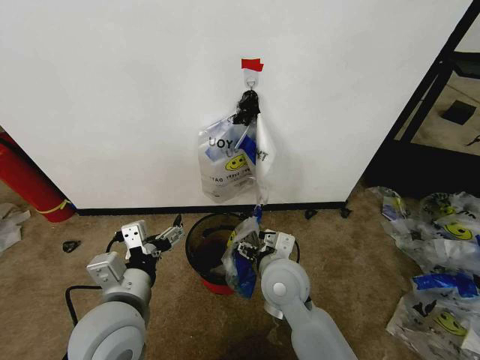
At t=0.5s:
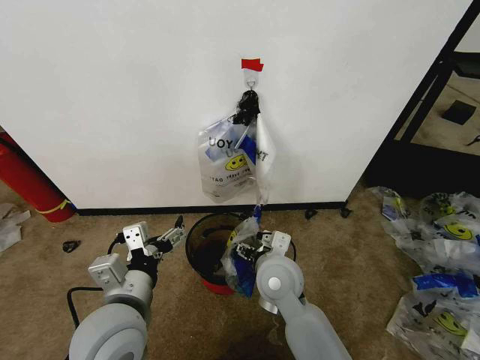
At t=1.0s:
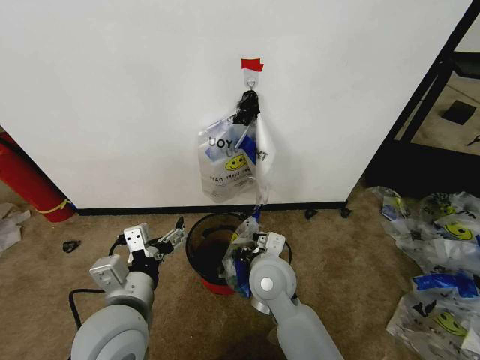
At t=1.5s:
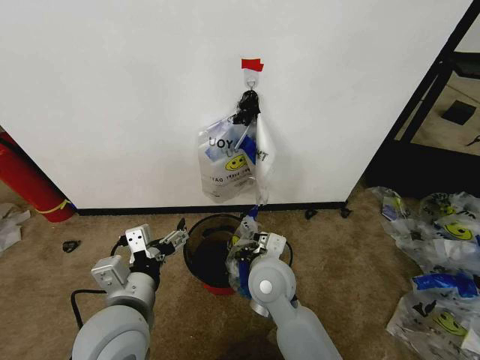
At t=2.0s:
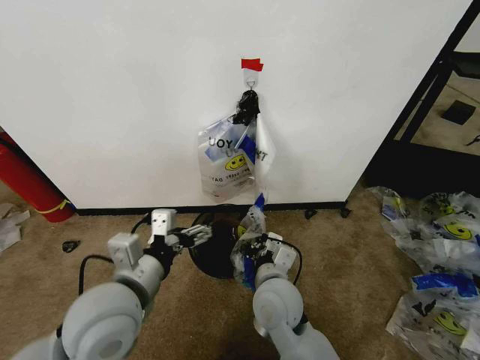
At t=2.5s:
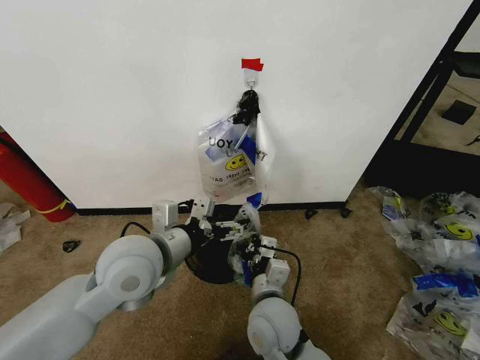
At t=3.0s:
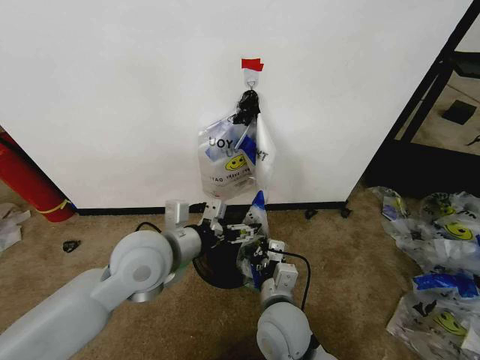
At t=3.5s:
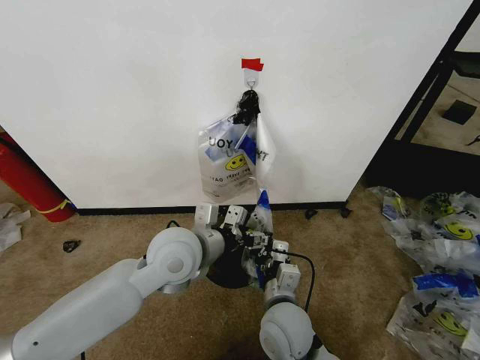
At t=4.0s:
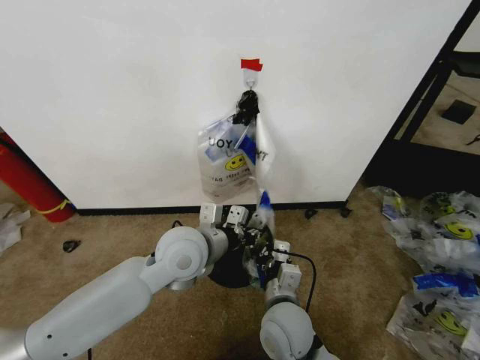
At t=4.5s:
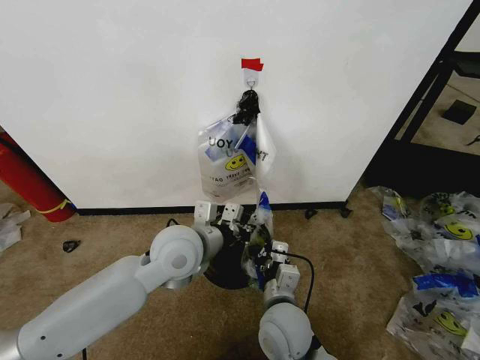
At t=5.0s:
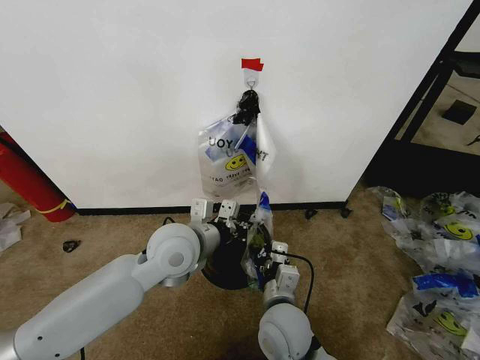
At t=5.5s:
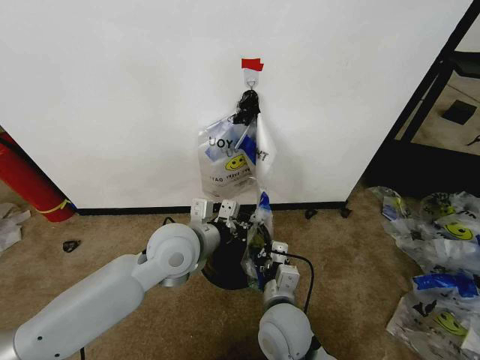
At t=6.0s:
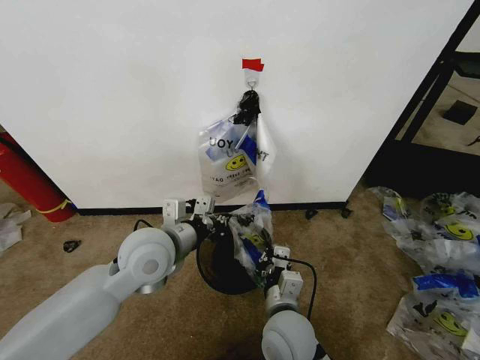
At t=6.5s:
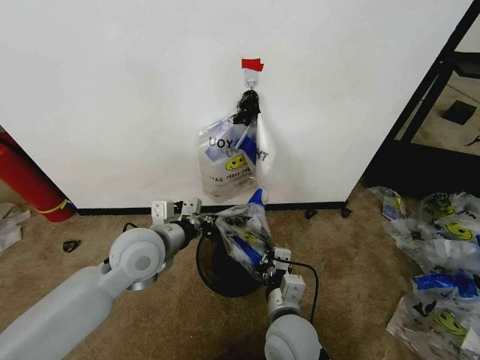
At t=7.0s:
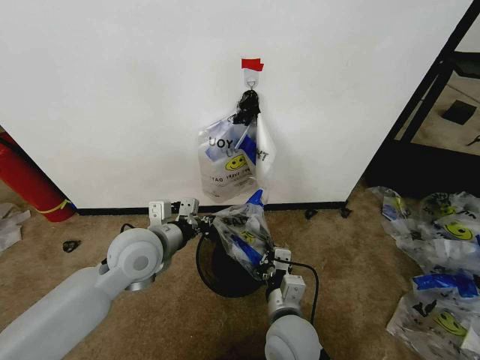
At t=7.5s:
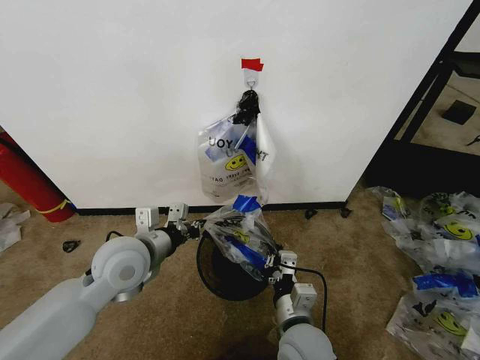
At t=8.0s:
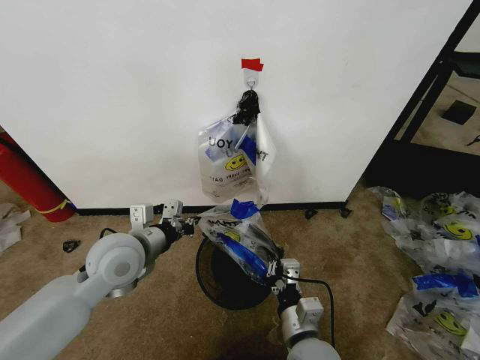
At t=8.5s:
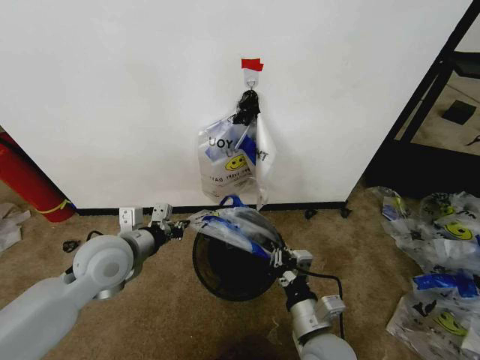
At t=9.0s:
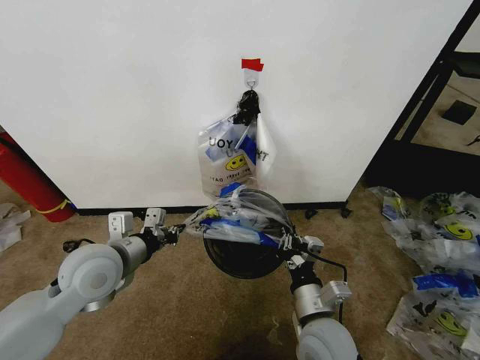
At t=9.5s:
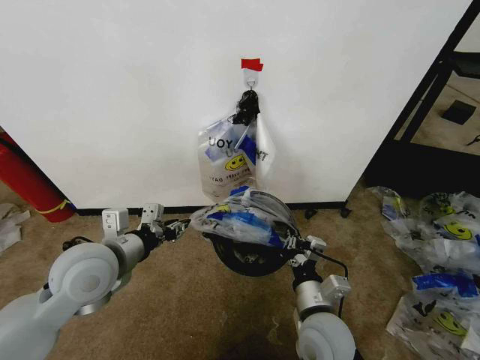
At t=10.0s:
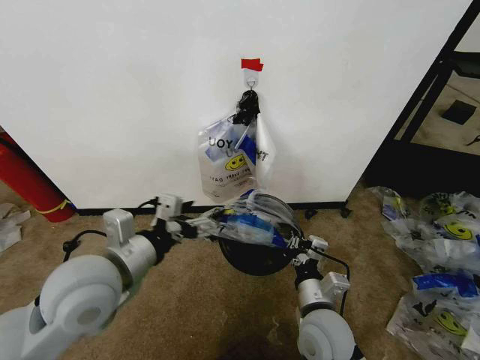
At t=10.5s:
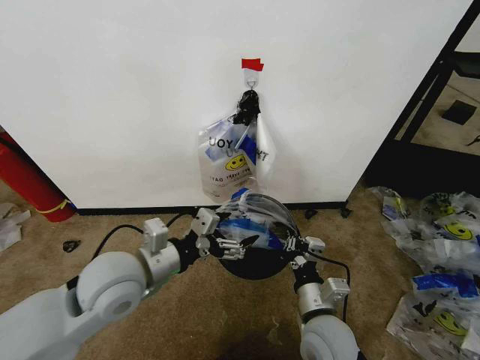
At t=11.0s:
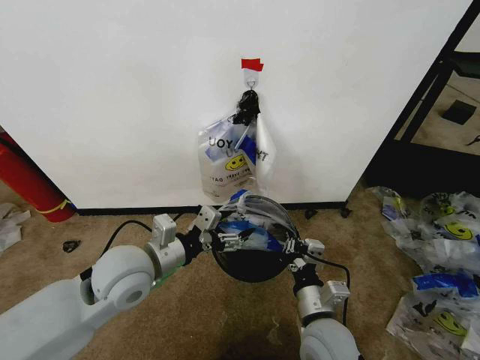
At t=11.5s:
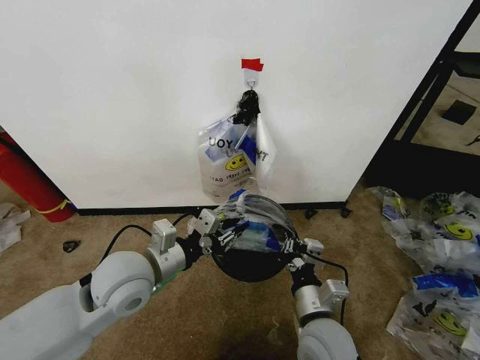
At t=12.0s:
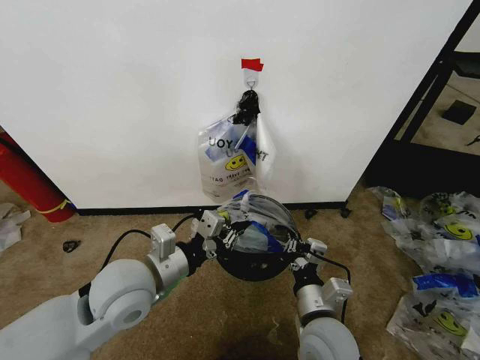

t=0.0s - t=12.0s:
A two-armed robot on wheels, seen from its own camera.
Task of the whole recording: Pick up the garbage bag from the wall and place it over the trash bin.
t=0.0s - t=2.0s: The right gripper closes its fingers.
t=2.0s - t=4.0s: The right gripper shifts by about 5 cm; the left gripper heads forward and to the right, covering approximately 15 cm, and closes.
t=4.0s - t=6.0s: The left gripper is displaced to the left by roughly 5 cm.
t=6.0s - t=8.0s: The right gripper changes place by some 5 cm. Meanwhile the left gripper moves to the left, approximately 5 cm.
t=8.0s - t=10.0s: The right gripper ends up some 5 cm from where it was, while the left gripper heads backward and upward, covering some 10 cm, and opens.
t=10.0s - t=12.0s: The left gripper moves some 5 cm, and closes.

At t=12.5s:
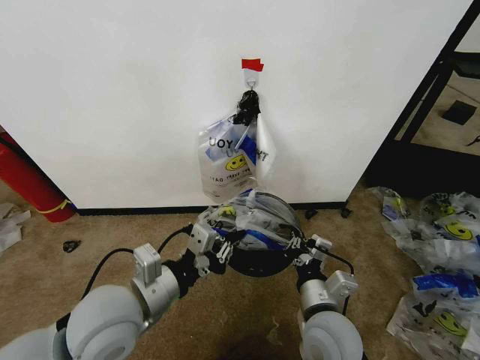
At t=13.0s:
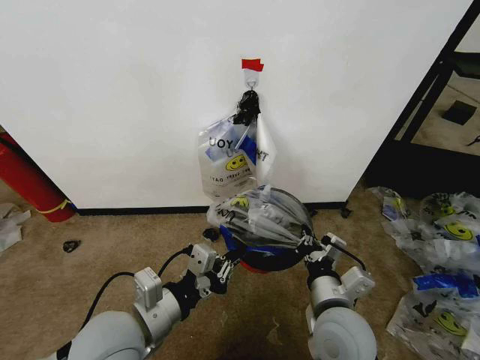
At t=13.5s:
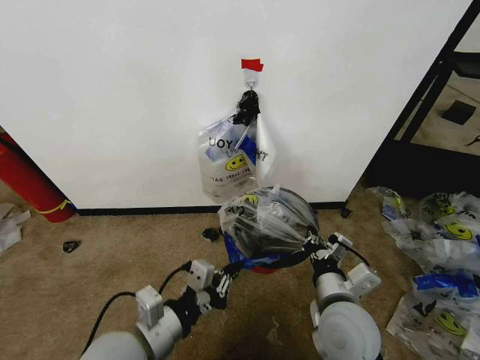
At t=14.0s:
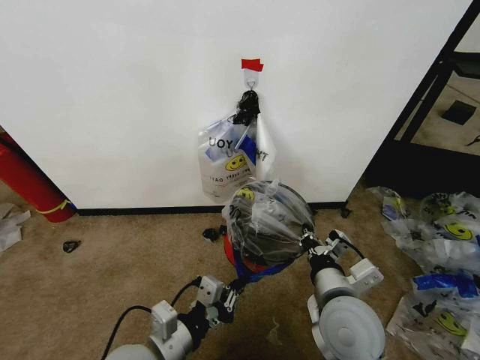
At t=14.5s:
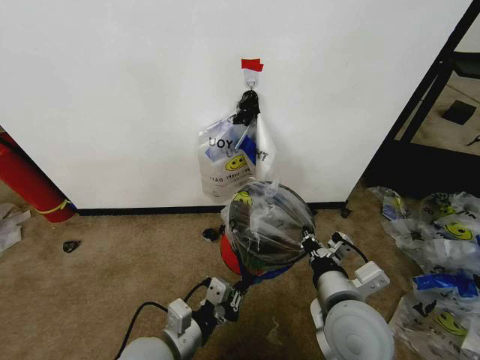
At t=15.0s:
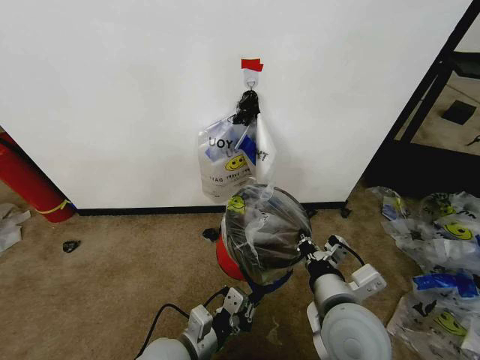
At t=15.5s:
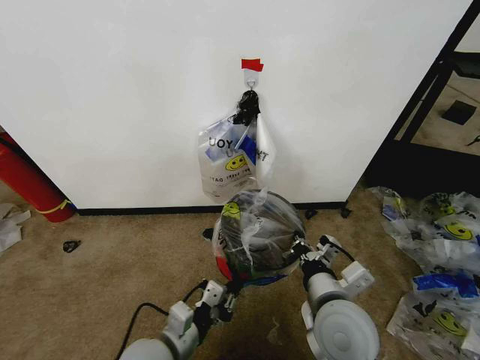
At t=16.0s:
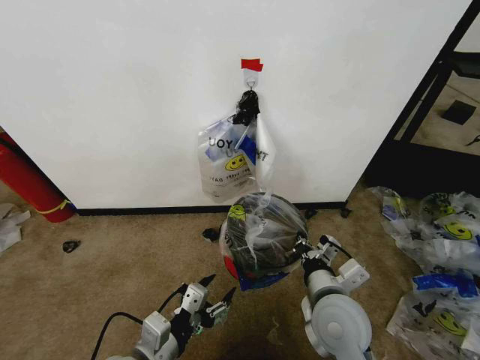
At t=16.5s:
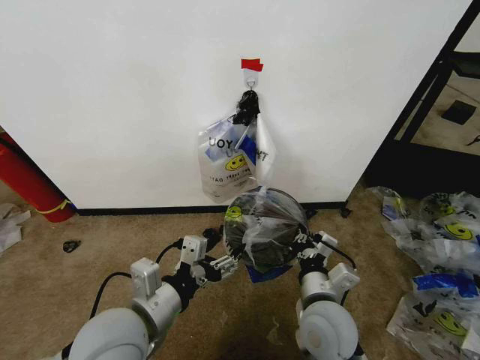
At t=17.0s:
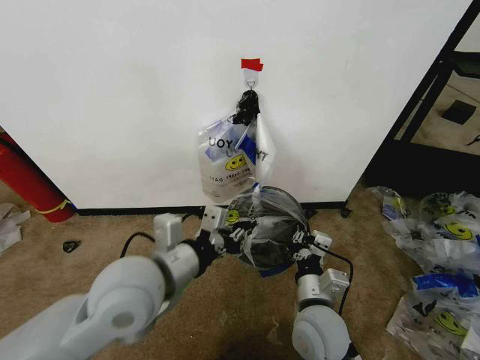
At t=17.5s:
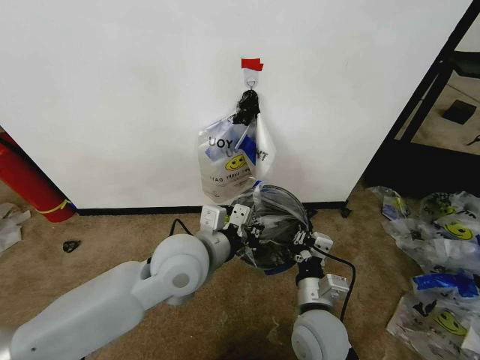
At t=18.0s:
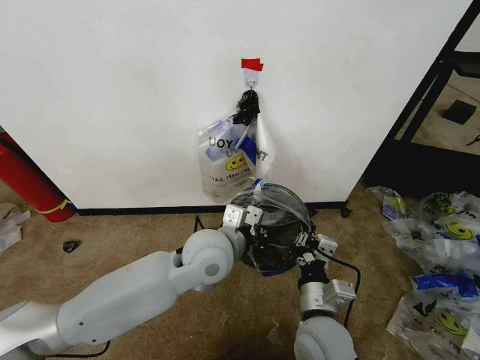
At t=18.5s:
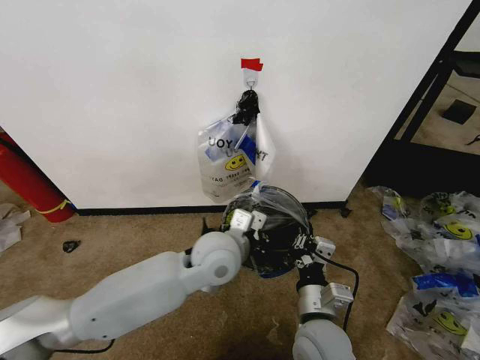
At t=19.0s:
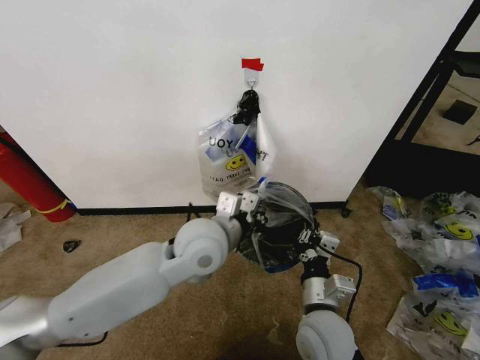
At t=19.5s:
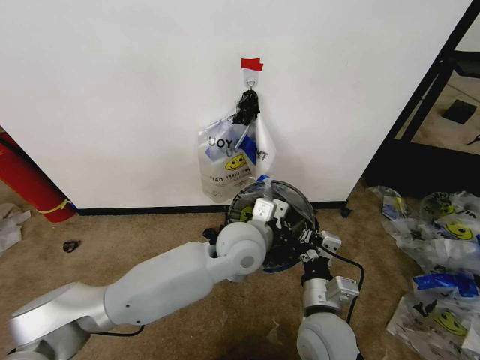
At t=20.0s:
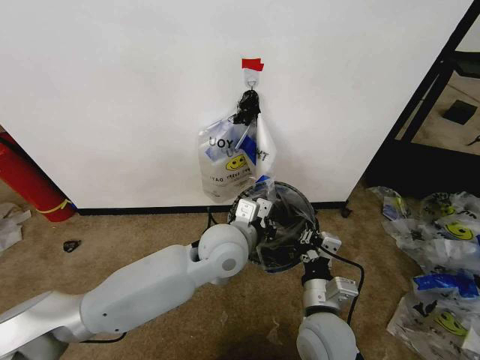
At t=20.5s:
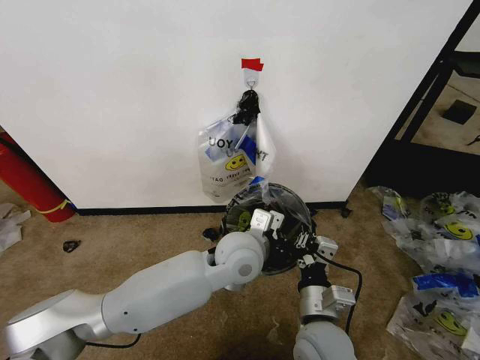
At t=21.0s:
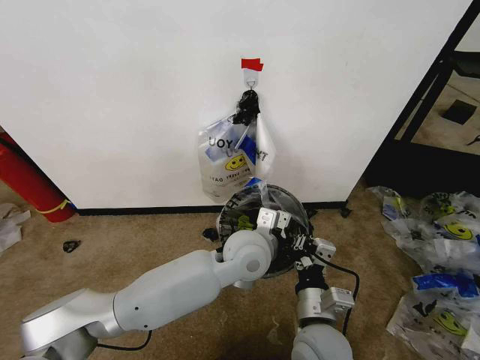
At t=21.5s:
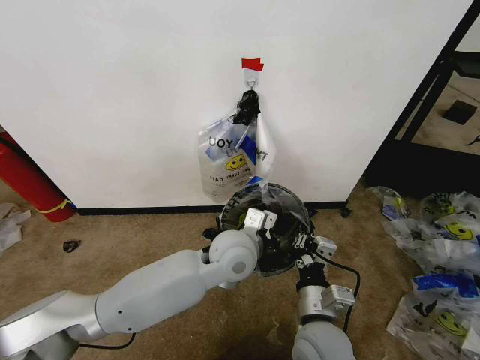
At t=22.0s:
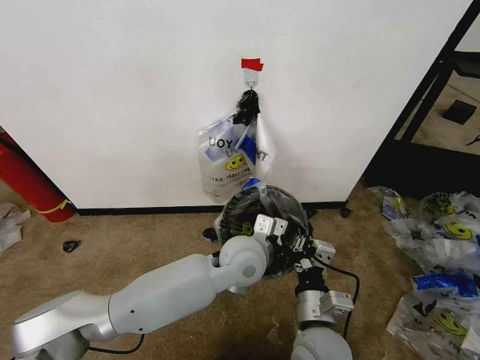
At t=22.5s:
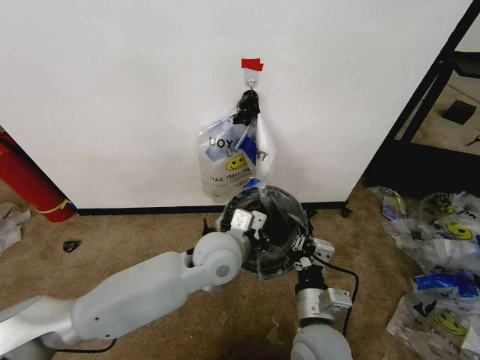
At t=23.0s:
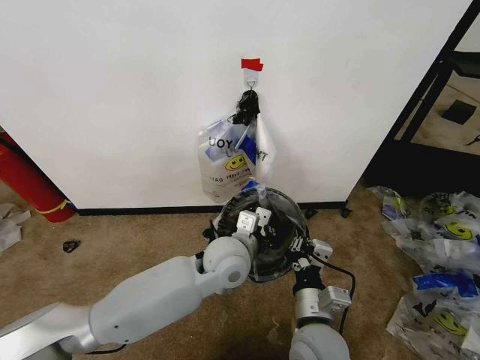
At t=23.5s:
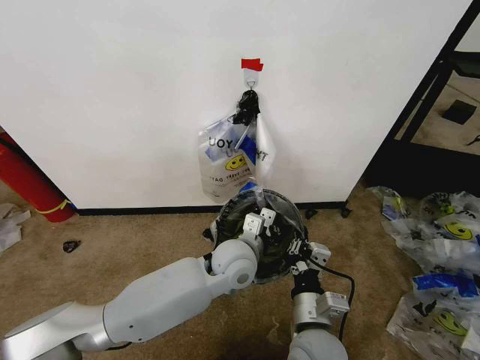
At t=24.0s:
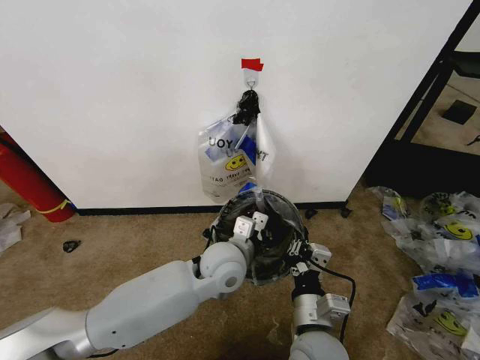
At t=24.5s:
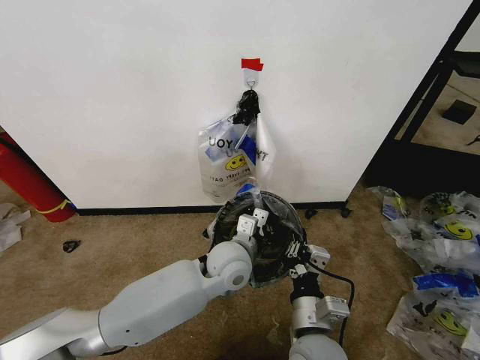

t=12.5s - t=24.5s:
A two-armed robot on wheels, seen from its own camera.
Task of the whole recording: Pick up the garbage bag from the wall and place it over the trash bin.
t=12.5s - t=14.5s: The left gripper heads downward, covering about 10 cm, while the right gripper moves upward, approximately 5 cm.
t=14.5s - t=16.5s: The left gripper goes some 10 cm upward, and opens up; the right gripper moves downward, roughly 5 cm.
t=16.5s - t=18.5s: The left gripper shifts about 20 cm forward and to the right, and closes its fingers.
t=20.5s - t=22.5s: The grippers make only small movements.
t=22.5s - t=24.5s: The left gripper moves downward, some 5 cm.

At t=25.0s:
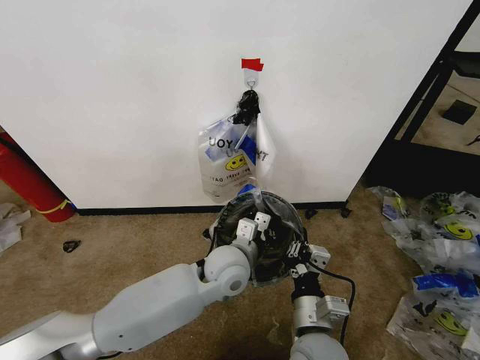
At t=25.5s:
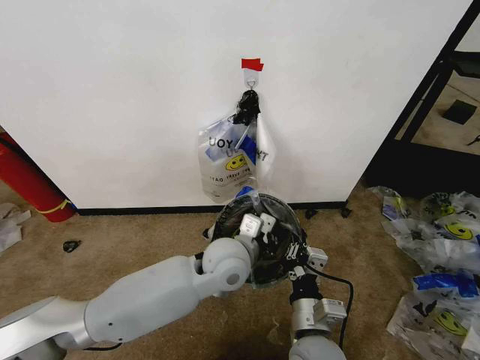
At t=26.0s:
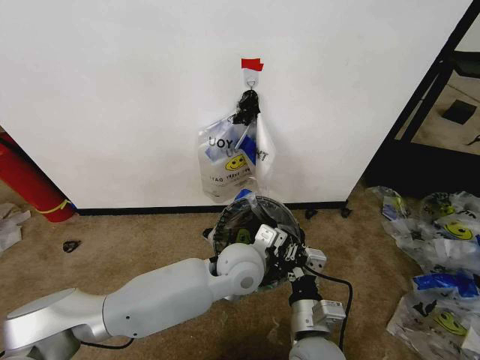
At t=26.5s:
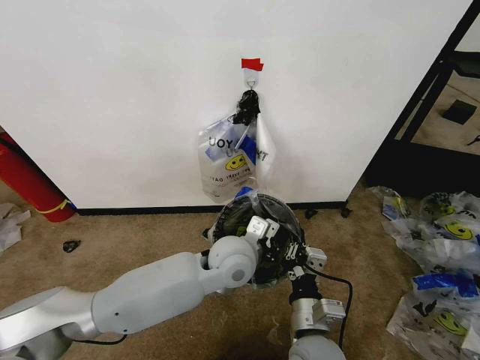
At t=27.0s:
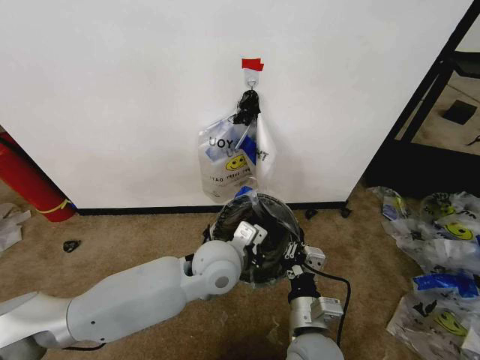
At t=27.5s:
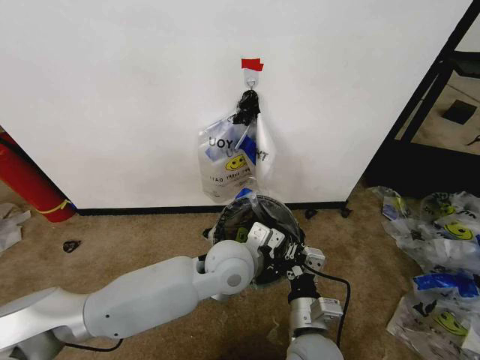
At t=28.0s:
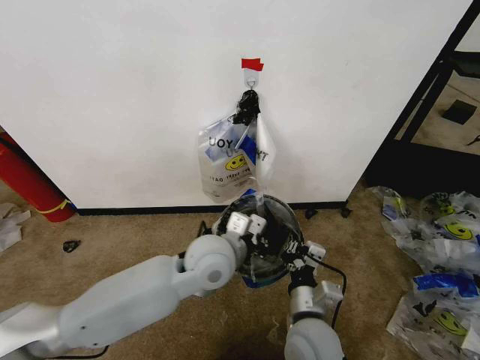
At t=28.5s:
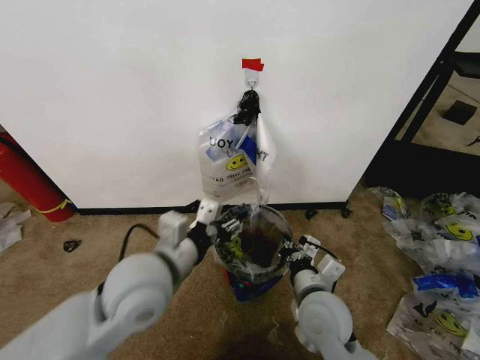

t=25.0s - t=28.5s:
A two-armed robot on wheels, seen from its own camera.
Task of the whole recording: Pick up the garbage bag from the wall and place it over the trash bin.
t=27.0s - t=28.5s: The right gripper heads forward, covering roughly 5 cm; the left gripper heads to the left, backward and upward, covering some 15 cm, and opens.
